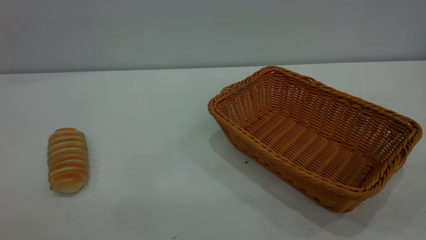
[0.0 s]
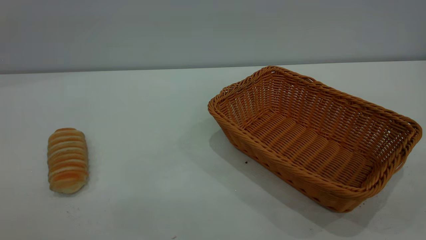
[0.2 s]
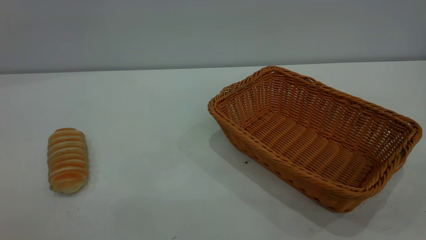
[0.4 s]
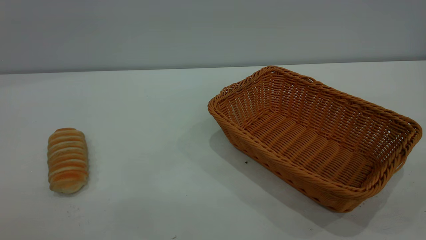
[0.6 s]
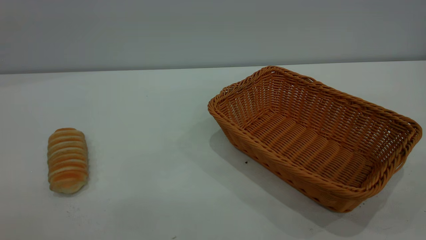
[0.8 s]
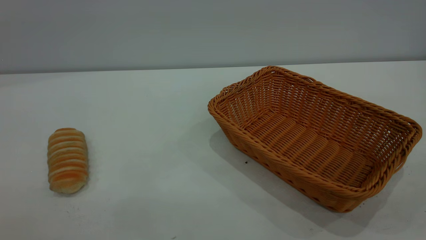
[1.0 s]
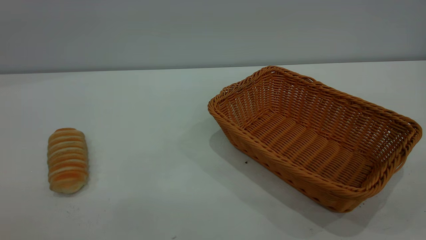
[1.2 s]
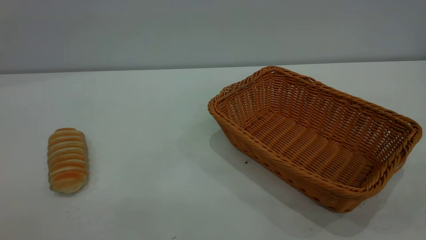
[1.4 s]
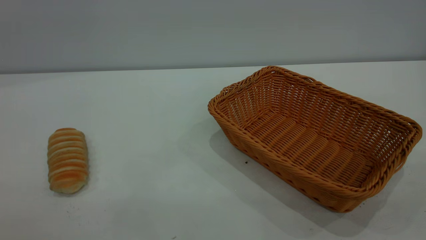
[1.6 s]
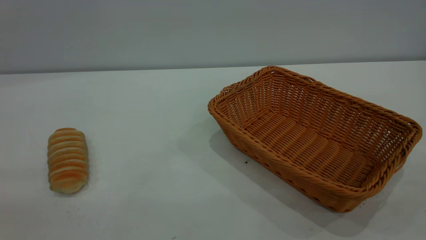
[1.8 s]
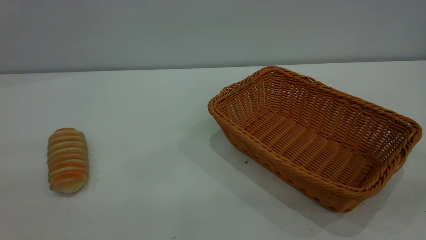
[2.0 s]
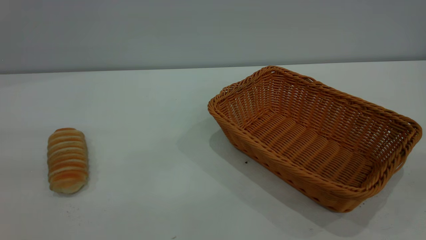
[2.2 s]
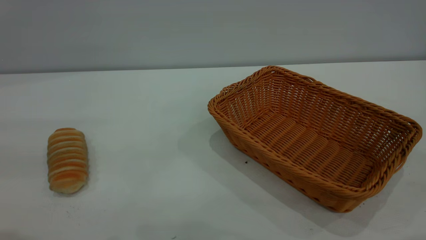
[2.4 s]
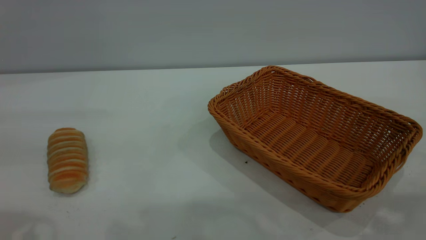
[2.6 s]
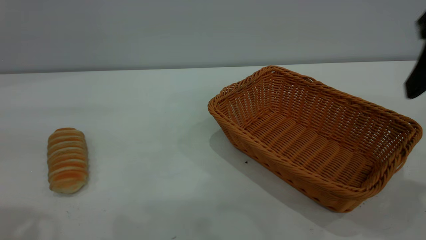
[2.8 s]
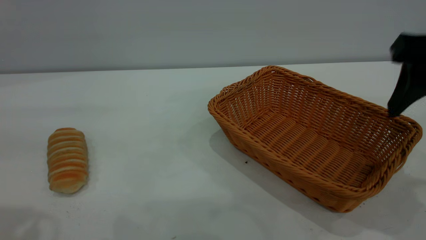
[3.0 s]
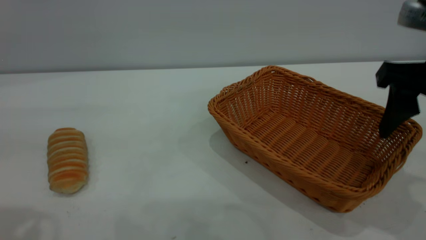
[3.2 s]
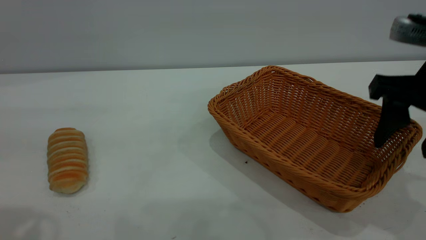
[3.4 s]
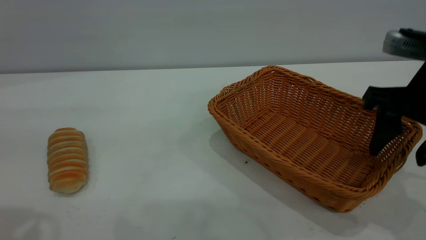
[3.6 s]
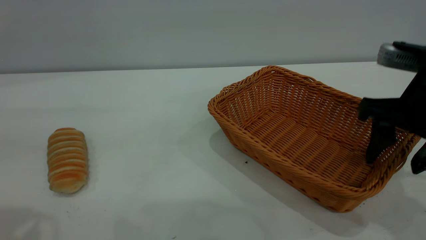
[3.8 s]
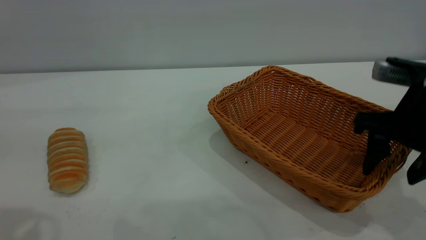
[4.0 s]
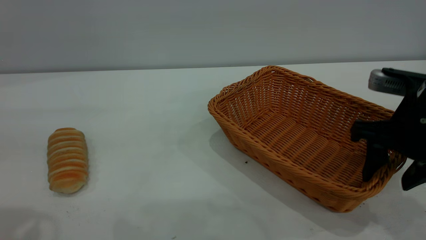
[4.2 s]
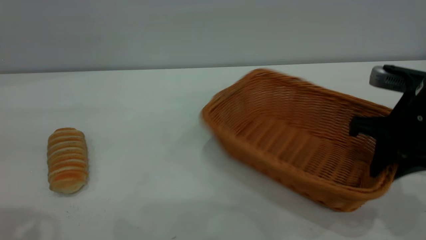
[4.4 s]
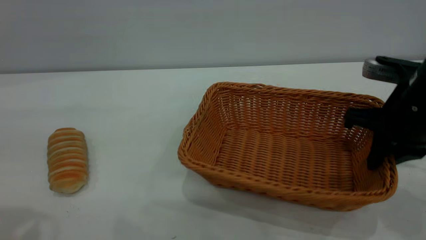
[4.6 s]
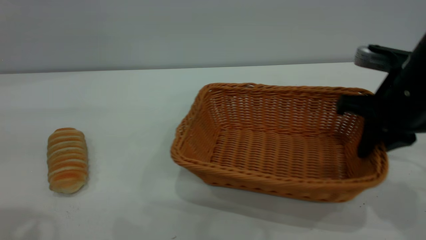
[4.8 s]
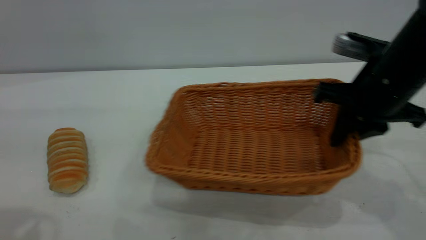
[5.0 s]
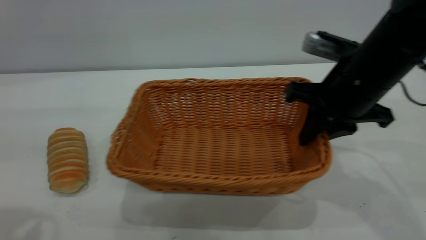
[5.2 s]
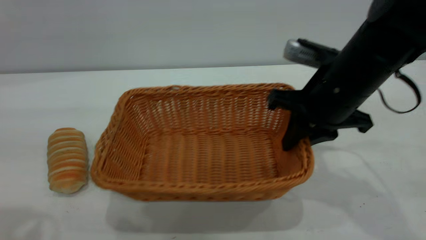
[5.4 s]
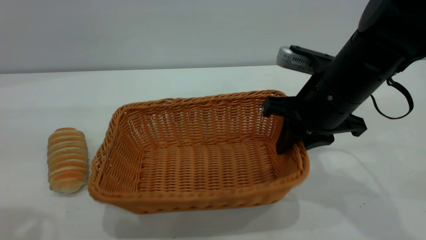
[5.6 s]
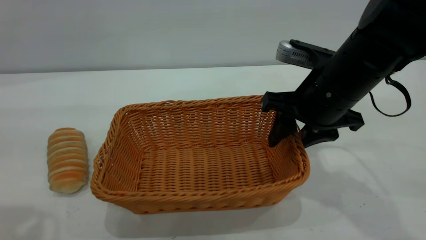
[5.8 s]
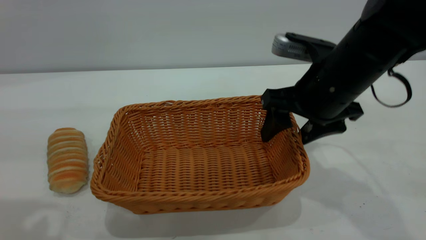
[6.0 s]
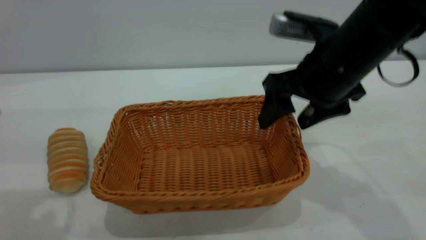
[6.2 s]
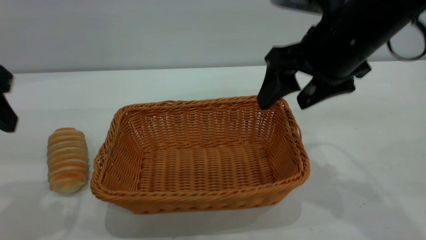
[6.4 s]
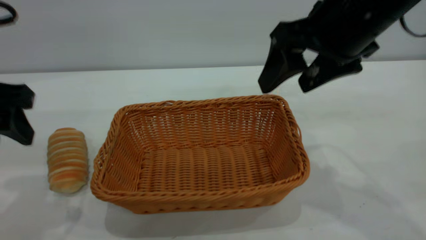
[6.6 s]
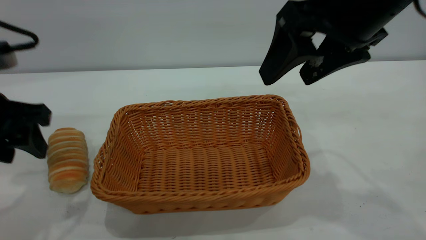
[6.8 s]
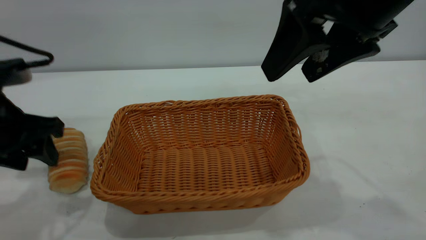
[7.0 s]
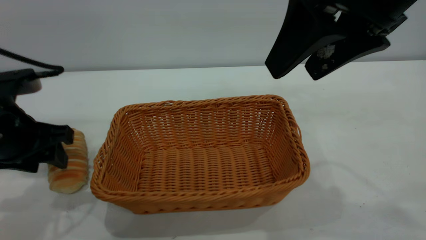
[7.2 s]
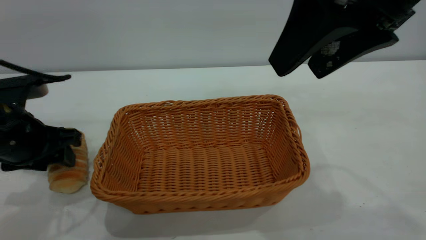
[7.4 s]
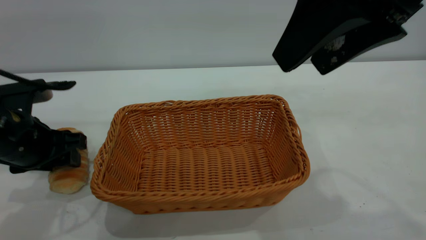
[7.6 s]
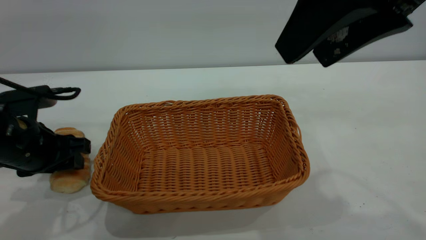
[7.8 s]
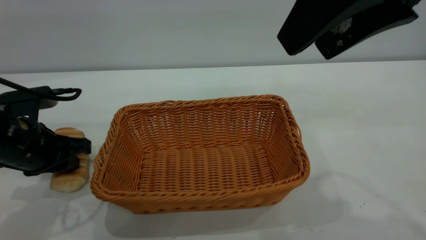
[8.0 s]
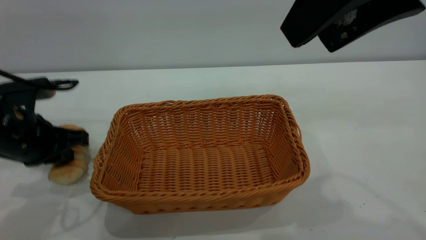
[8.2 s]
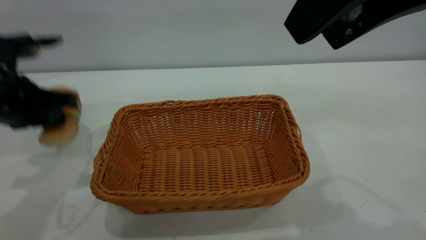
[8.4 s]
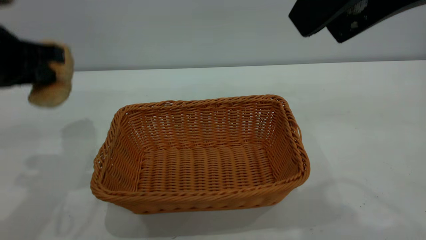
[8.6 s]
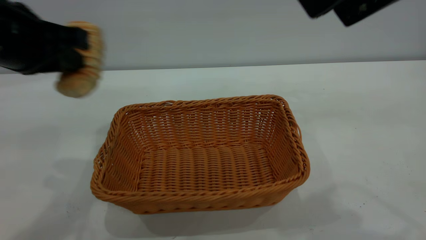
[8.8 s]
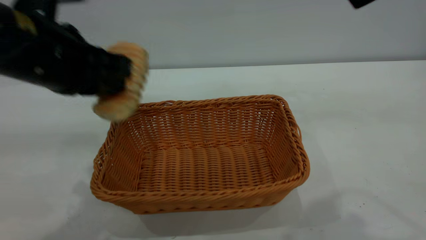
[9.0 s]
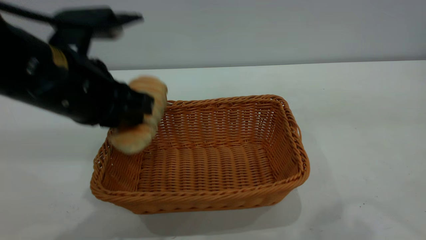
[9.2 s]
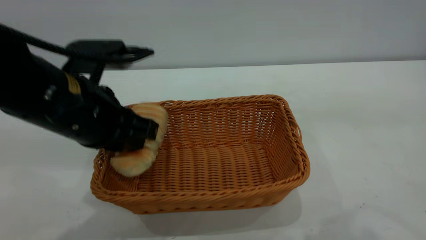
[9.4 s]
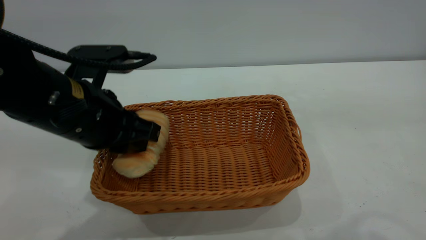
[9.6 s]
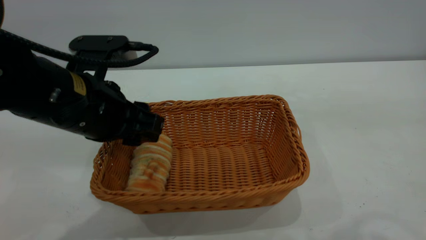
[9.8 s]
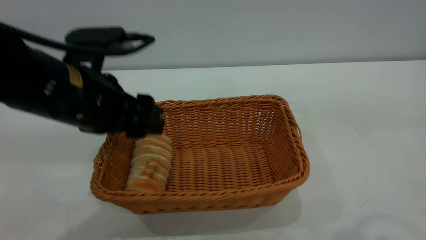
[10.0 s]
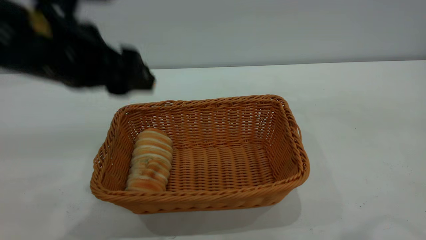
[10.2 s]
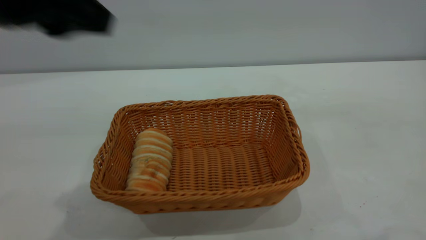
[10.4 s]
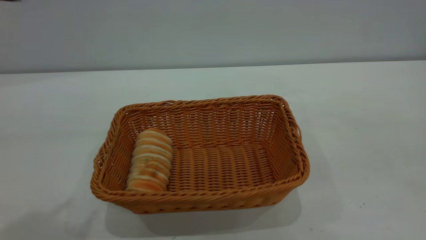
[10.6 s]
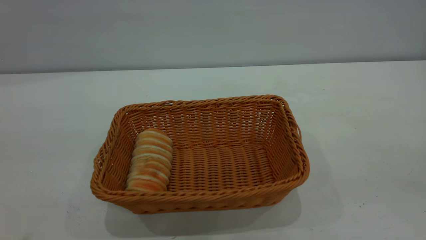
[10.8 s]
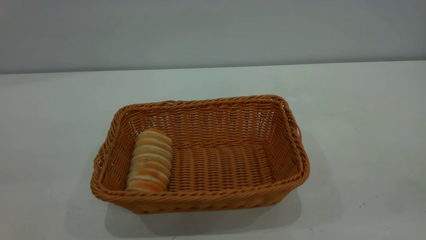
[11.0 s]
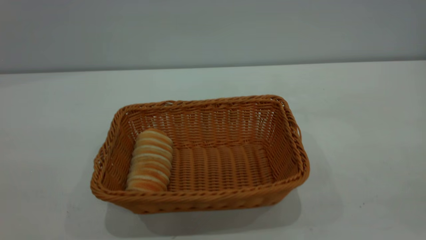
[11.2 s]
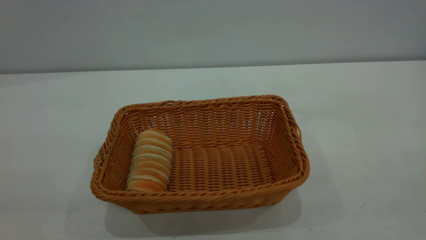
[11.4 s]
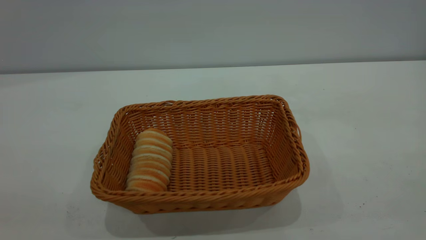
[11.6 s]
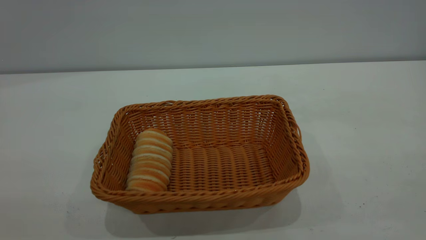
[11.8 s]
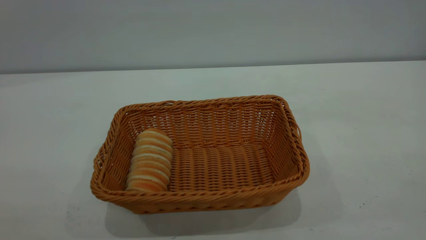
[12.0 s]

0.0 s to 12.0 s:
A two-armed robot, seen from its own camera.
Task of the whole recording: One hand grasps the yellow basket and places it in the middle of the table, while the other hand picks up the long bread and puts it into the yellow basket.
Step, 0.0 to 6.6 s: Move the basket to the center of view.
Step, 8.6 to 10.2 s: place the bread into the basket.
1.6 to 3.0 s: The right gripper heads forward, covering approximately 25 cm.
3.0 to 4.4 s: The right gripper travels downward by roughly 10 cm, and closes up.
4.4 to 6.0 s: The right gripper travels to the left by some 10 cm, and opens.
6.0 to 7.6 s: The left gripper heads downward and forward, covering about 20 cm. Meanwhile the right gripper goes about 20 cm upward and backward.
7.6 to 9.0 s: The right gripper moves upward, roughly 5 cm. Meanwhile the left gripper shifts some 15 cm upward and to the right, and closes its fingers.
9.0 to 10.4 s: The right gripper is displaced backward by approximately 5 cm. Meanwhile the left gripper heads upward, covering some 10 cm, and opens.
10.4 to 12.0 s: The left gripper is displaced backward and to the left by some 25 cm.

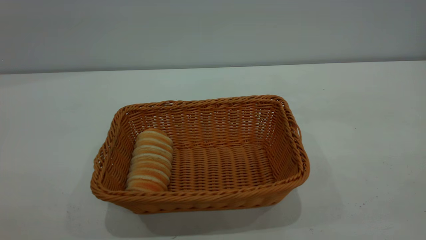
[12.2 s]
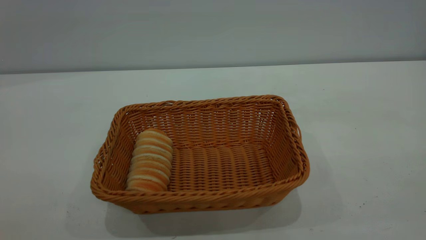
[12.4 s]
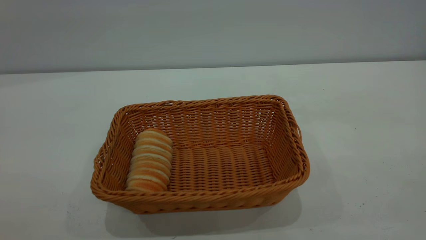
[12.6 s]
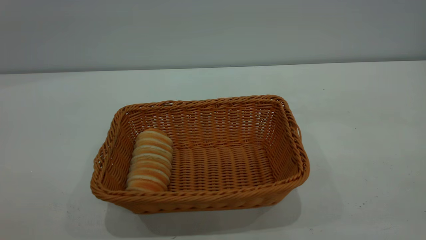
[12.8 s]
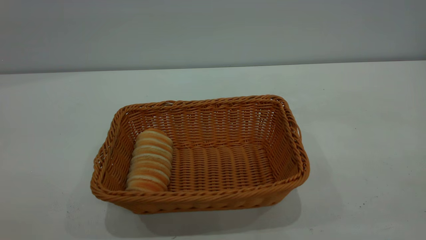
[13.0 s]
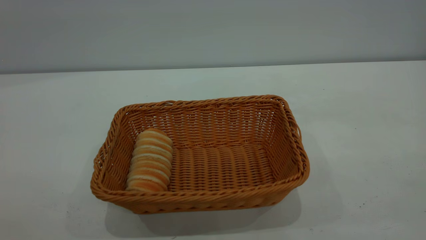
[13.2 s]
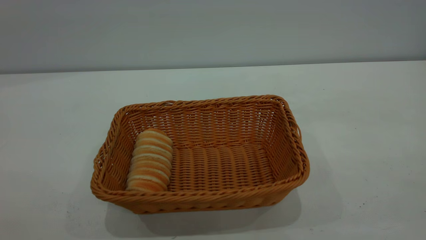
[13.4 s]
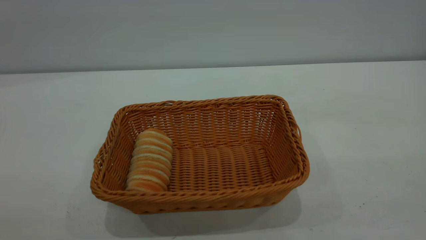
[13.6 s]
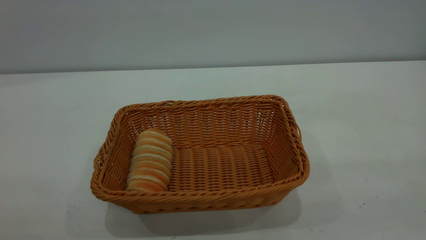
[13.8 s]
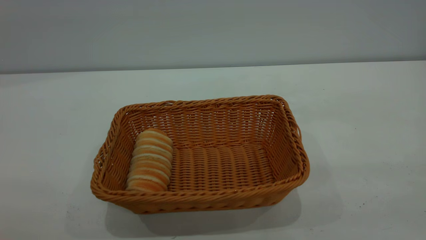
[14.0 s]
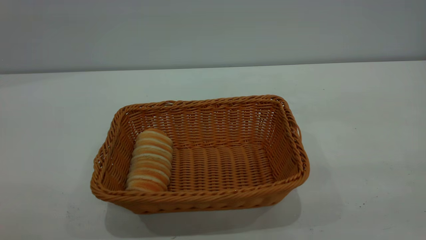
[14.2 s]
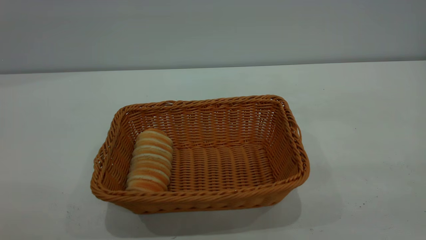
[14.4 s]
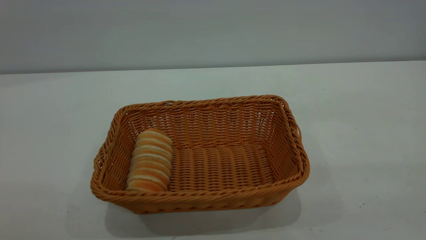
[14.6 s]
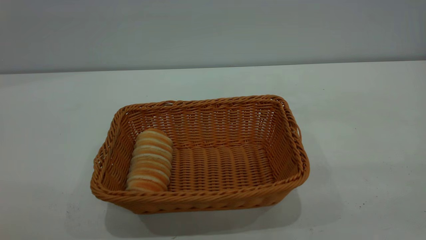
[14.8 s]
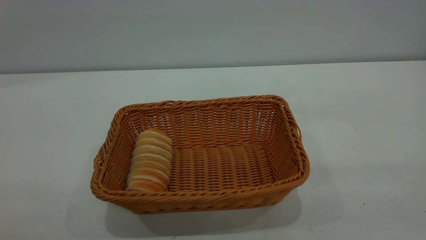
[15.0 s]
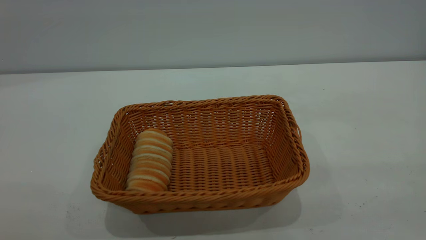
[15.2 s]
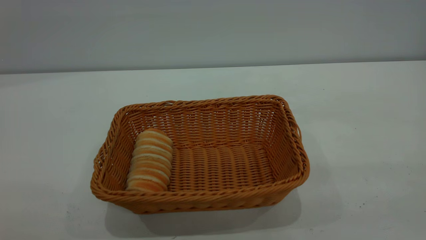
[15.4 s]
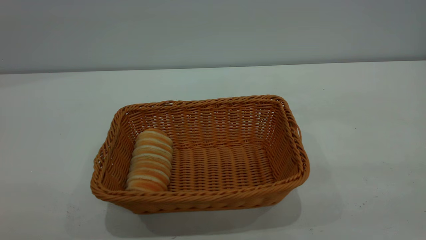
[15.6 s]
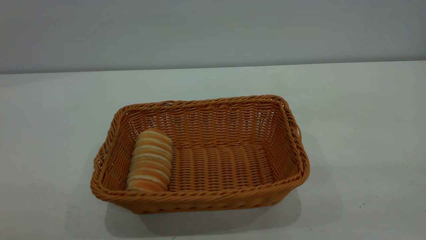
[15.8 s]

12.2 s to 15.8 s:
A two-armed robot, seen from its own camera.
Task of the whole recording: One hand grasps the yellow basket and places it in the middle of the table, while the other hand picks up the long bread and puts it into the yellow basket.
14.0 to 15.8 s: Both grippers stay put.
